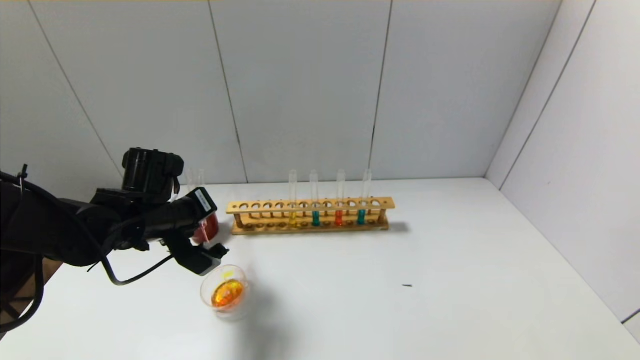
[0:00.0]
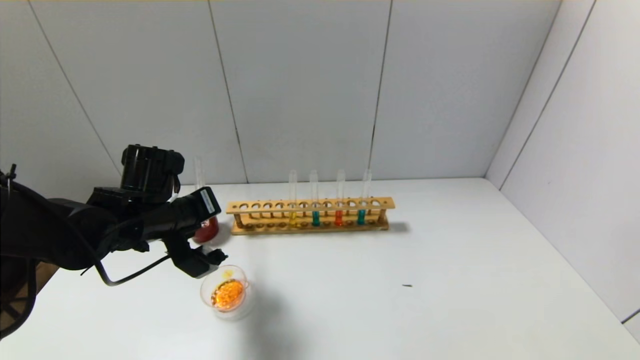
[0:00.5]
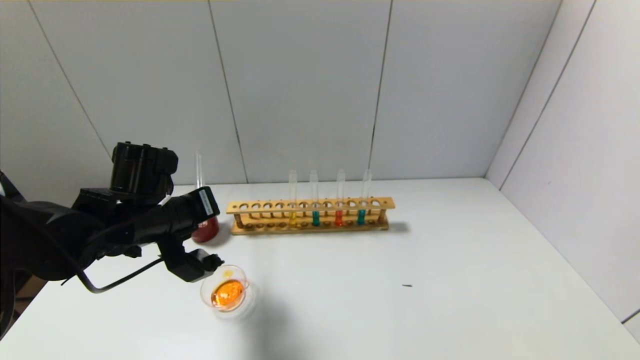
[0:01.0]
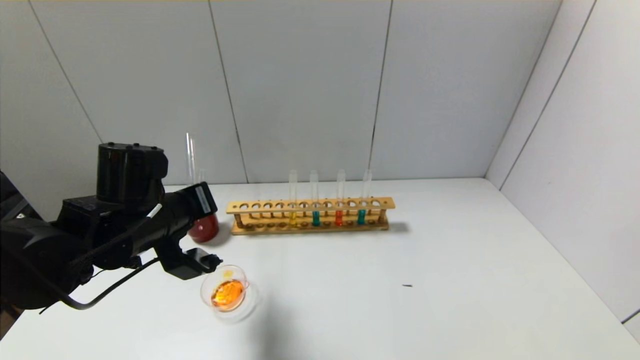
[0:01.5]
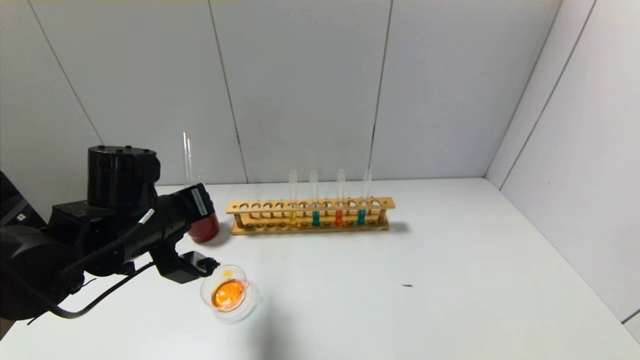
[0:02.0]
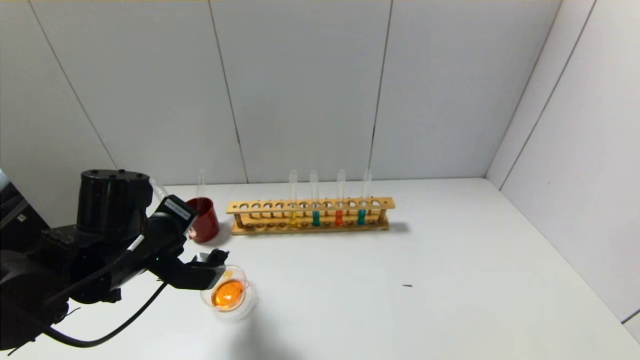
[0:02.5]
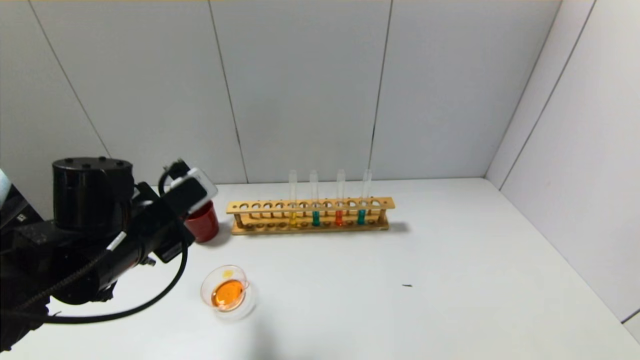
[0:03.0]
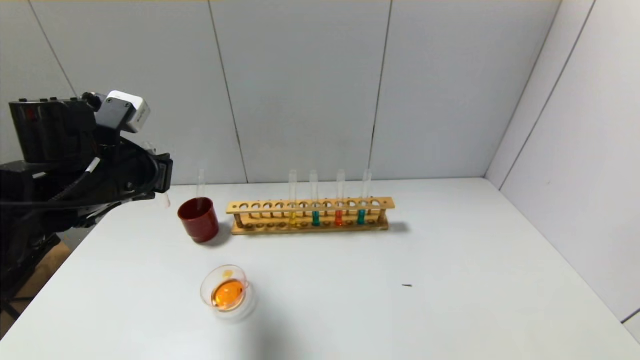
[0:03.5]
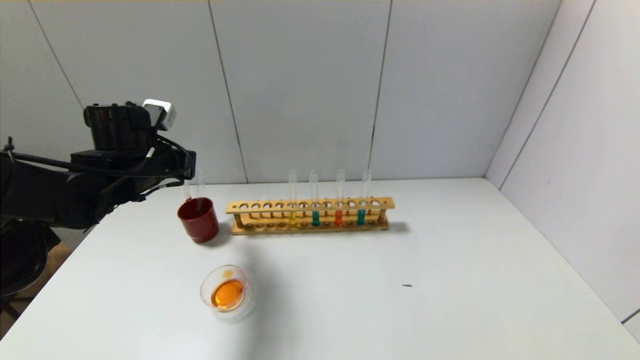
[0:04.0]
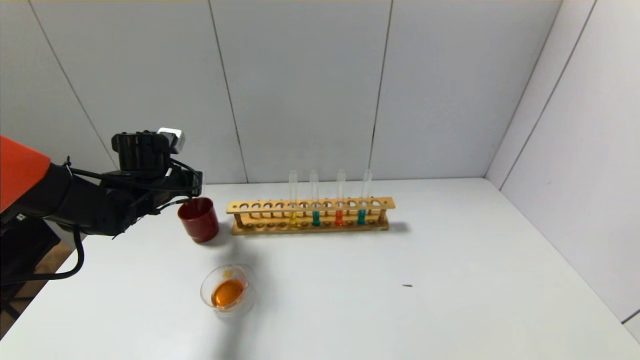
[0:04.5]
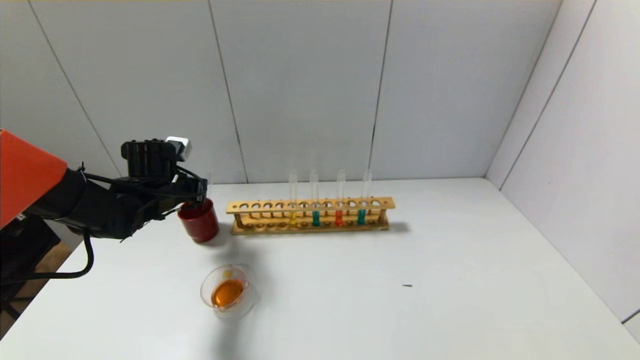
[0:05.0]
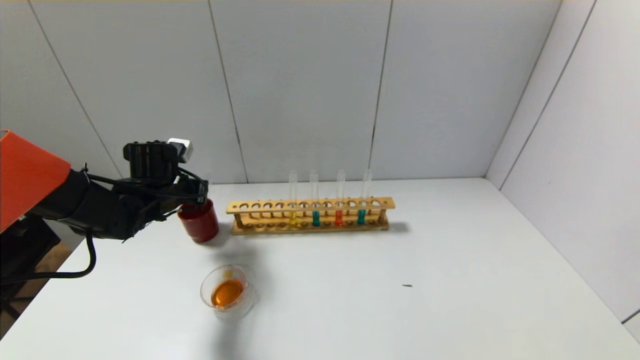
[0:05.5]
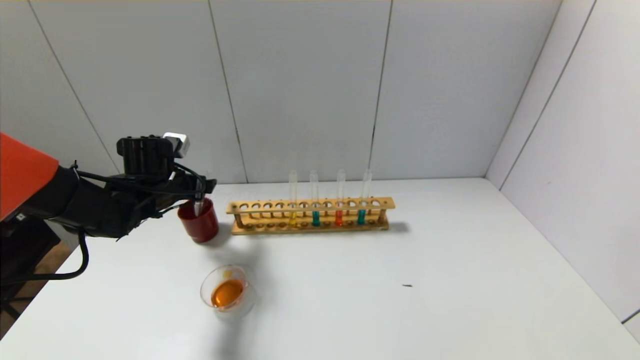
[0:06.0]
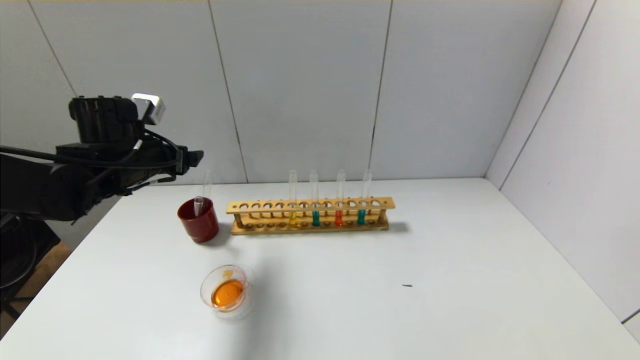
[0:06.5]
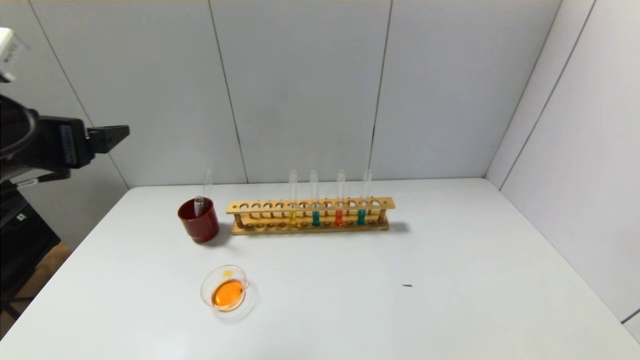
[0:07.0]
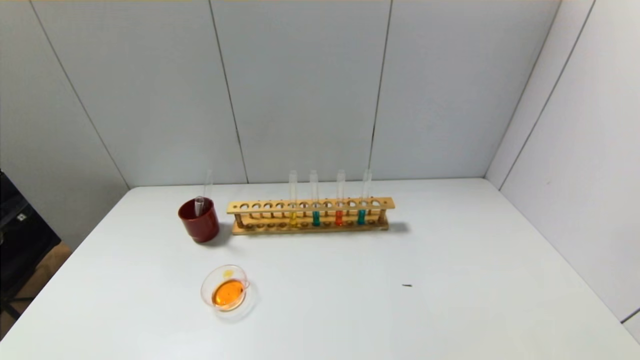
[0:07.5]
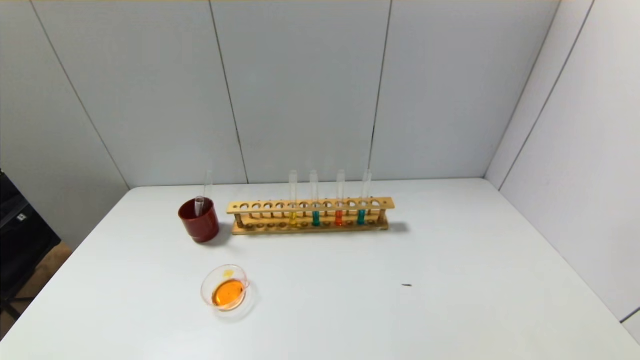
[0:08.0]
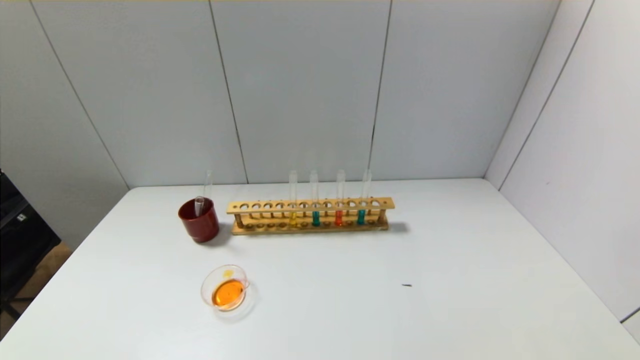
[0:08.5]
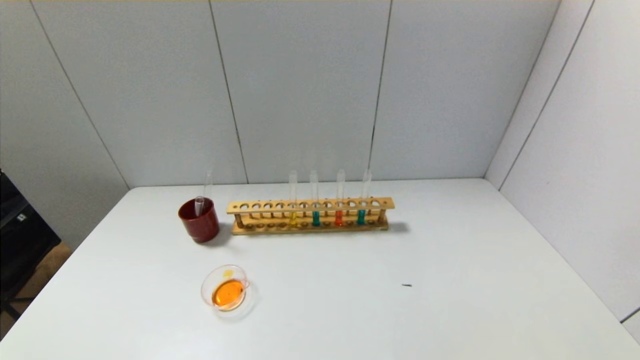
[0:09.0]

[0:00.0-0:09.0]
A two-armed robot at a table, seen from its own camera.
Step, 0:00.0 to 0:02.0: Pour the red reagent into the graduated cylinder with the left gripper.
Step, 0:02.5 to 0:05.5: Place the test tube into the brown cup with the left gripper.
0:00.0 to 0:02.0: The left gripper shifts some 5 cm backward.
0:02.0 to 0:04.5: The left gripper shifts approximately 15 cm forward and to the left.
0:04.5 to 0:07.0: The left gripper travels backward and upward by some 25 cm, and opens.
0:07.0 to 0:09.0: The left gripper goes roughly 30 cm backward and downward.

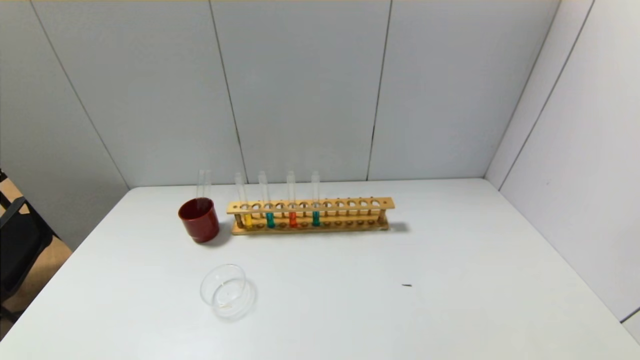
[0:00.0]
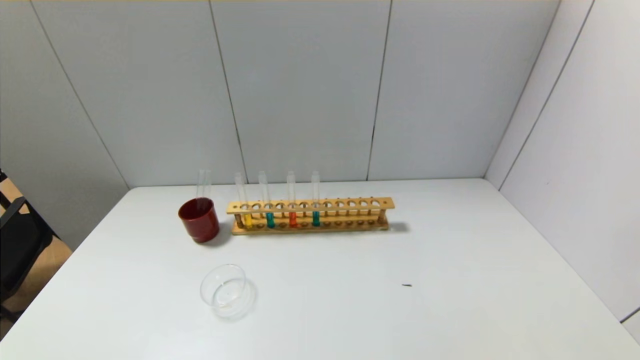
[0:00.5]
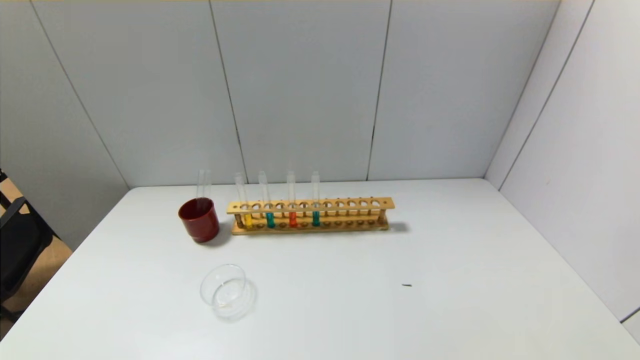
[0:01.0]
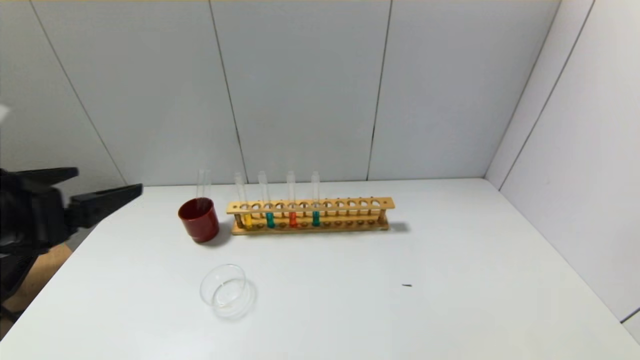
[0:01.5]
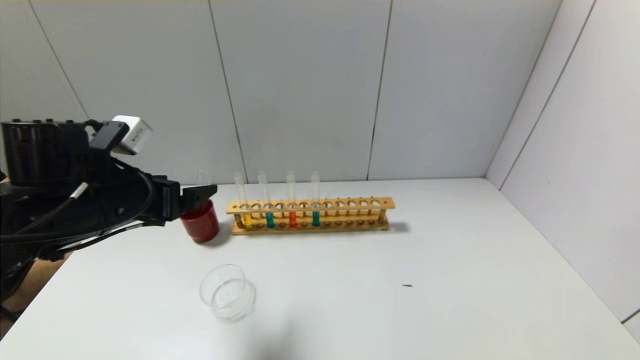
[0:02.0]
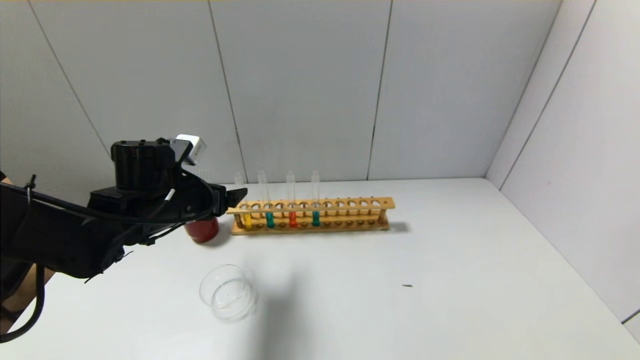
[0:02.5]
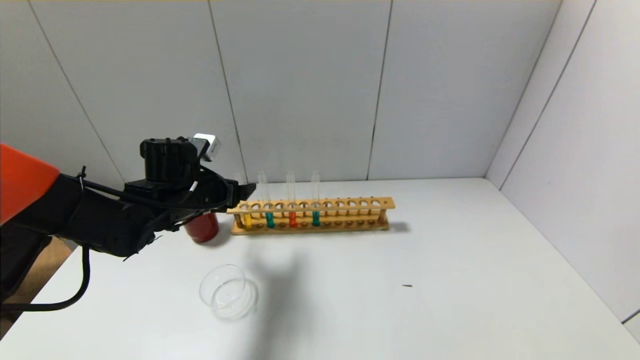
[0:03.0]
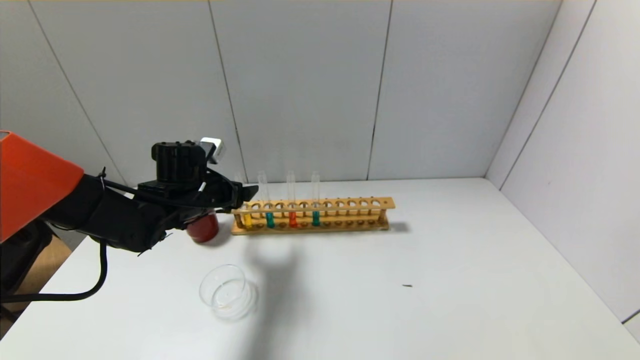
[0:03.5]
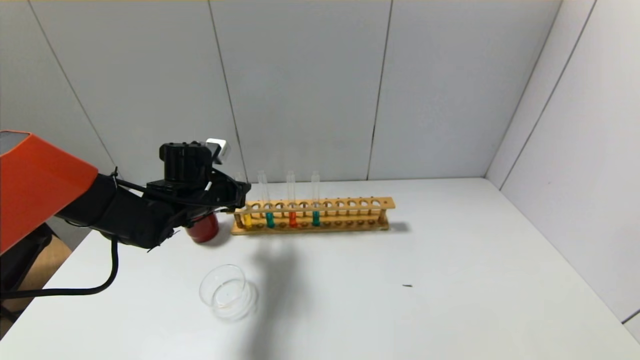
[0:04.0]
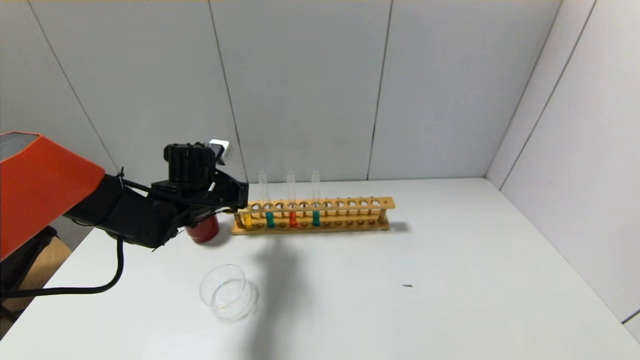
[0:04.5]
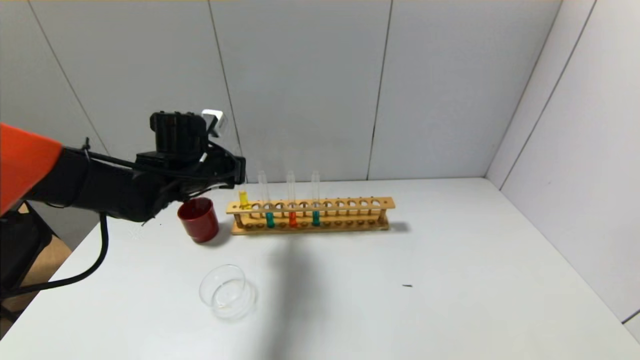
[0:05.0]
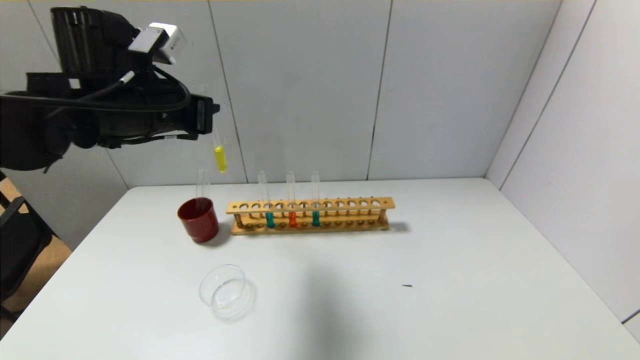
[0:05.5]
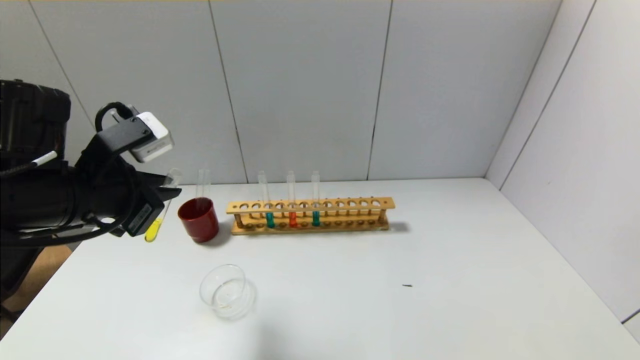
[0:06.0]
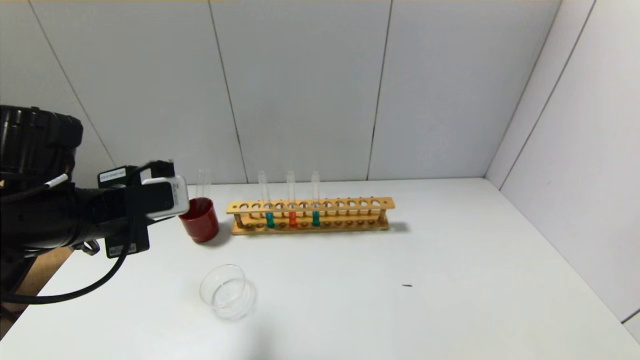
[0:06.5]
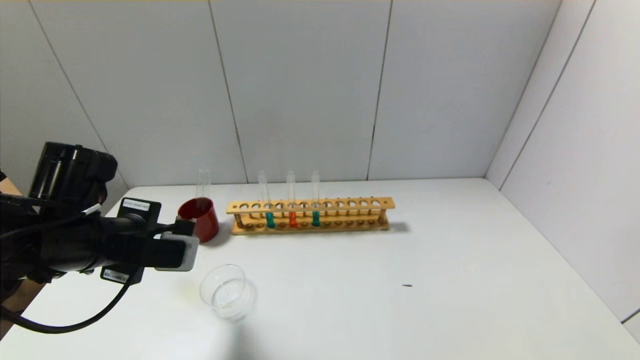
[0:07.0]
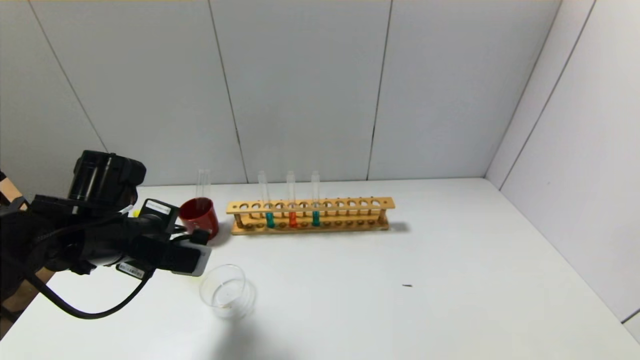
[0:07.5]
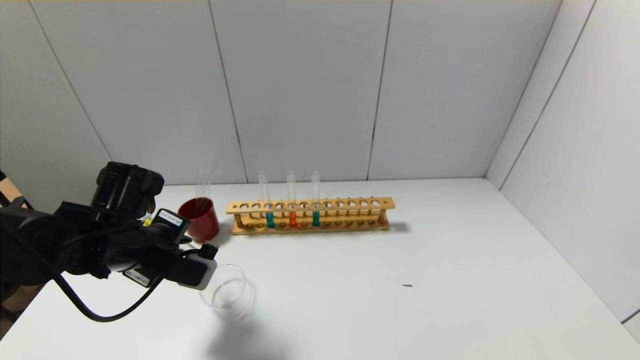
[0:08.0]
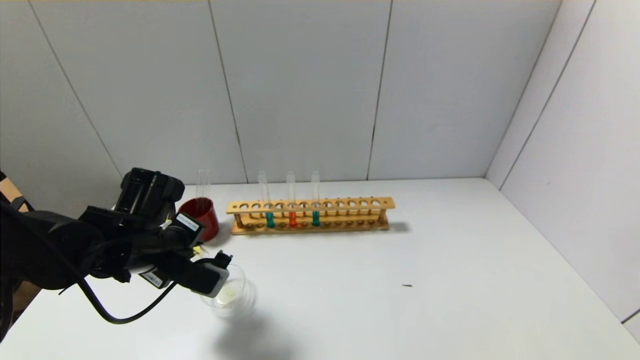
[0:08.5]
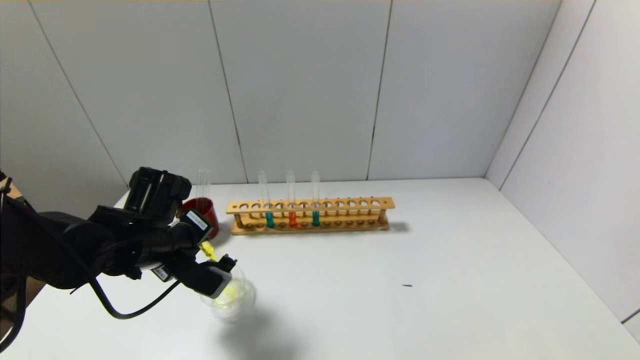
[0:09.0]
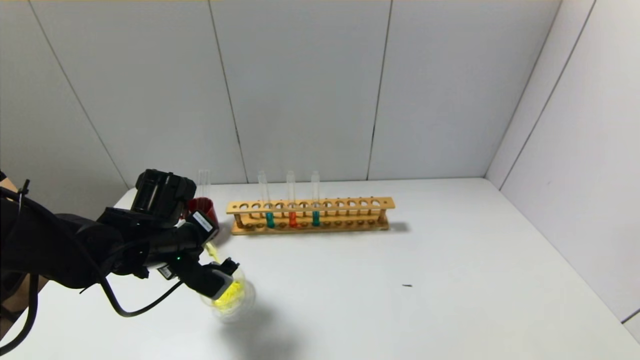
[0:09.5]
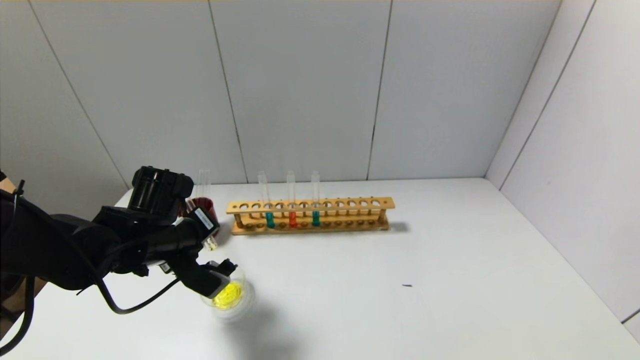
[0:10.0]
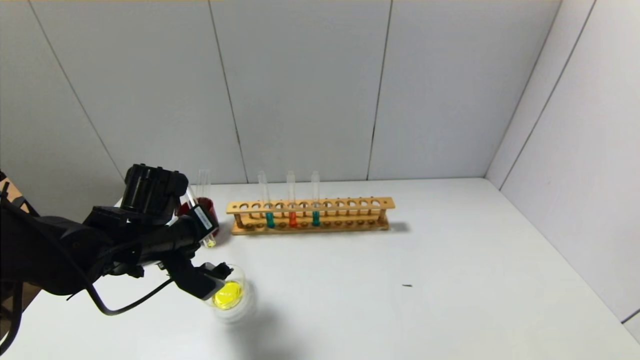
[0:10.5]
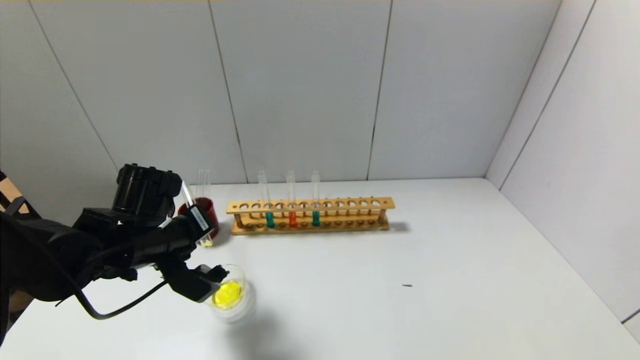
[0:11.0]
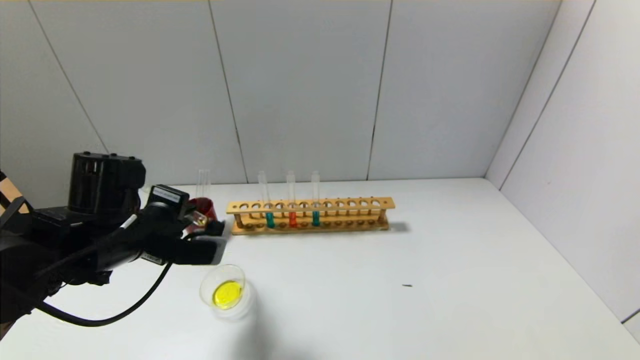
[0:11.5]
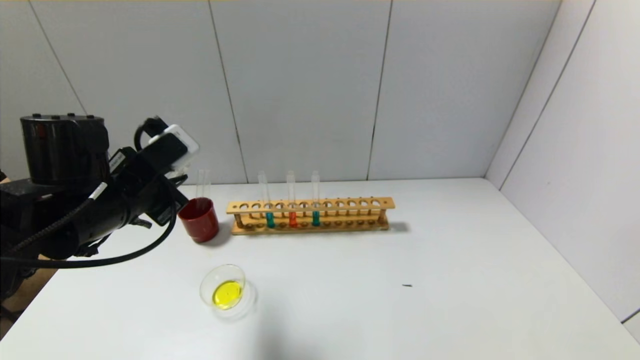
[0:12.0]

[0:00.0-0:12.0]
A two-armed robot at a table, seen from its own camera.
Step, 0:00.0 to 0:04.0: Grasp the yellow reagent with the left gripper.
Step, 0:04.5 to 0:11.5: Pour the yellow reagent into the graduated cylinder with the left gripper.
0:00.0 to 0:02.0: The left gripper moves forward and upward, about 30 cm.
0:02.0 to 0:04.0: The left gripper moves forward and downward, roughly 15 cm, and closes up.
0:04.0 to 0:06.0: The left gripper travels backward and upward by about 20 cm, and closes up.
0:06.0 to 0:08.0: The left gripper goes some 10 cm downward.
0:10.0 to 0:12.0: The left gripper travels upward by roughly 10 cm.
